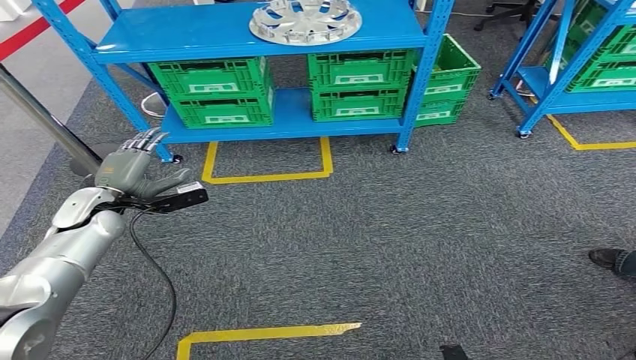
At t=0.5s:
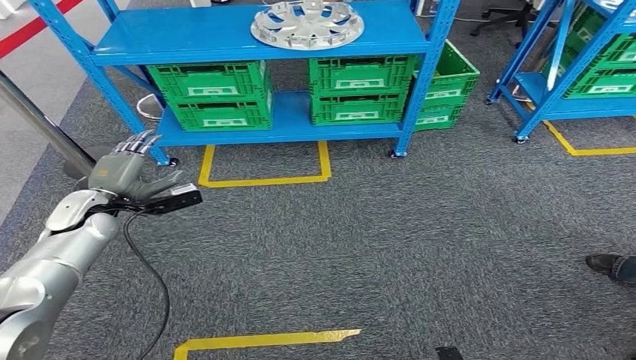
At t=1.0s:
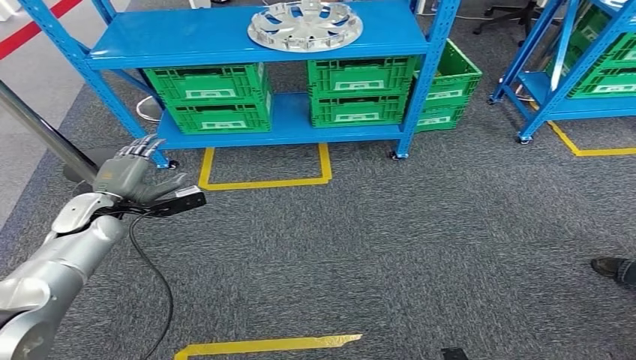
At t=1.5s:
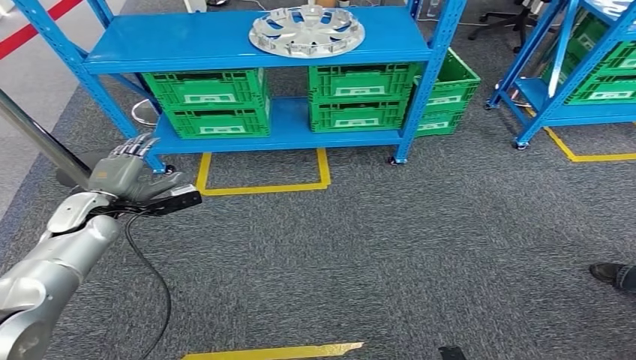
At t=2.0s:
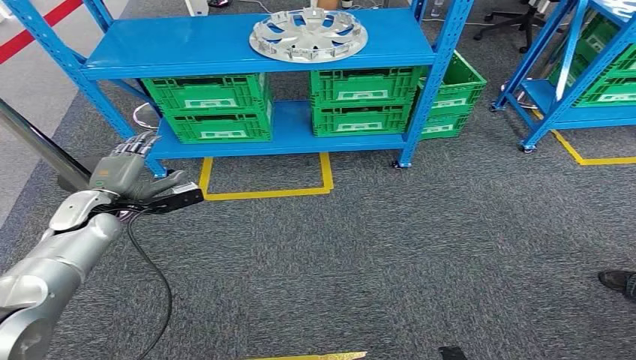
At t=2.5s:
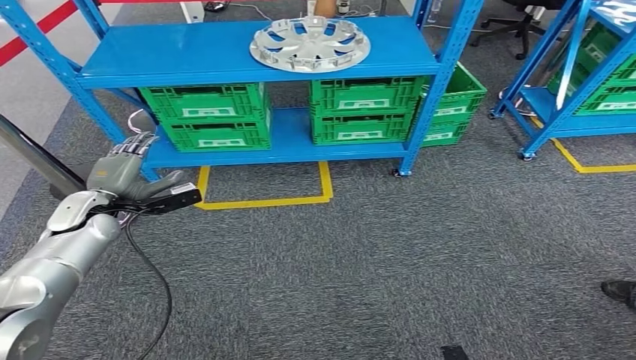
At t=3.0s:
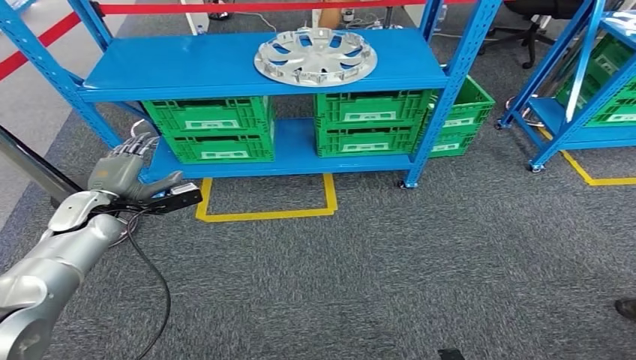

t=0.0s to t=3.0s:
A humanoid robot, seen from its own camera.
Step, t=0.0s to t=3.0s: Return to the initial position at the workbench.
